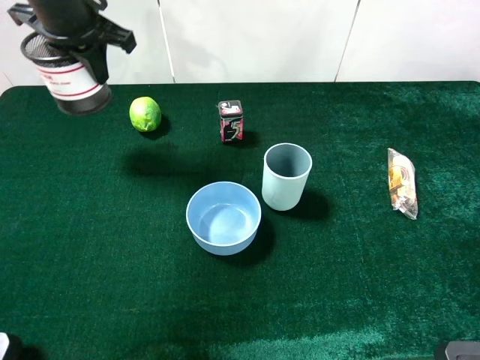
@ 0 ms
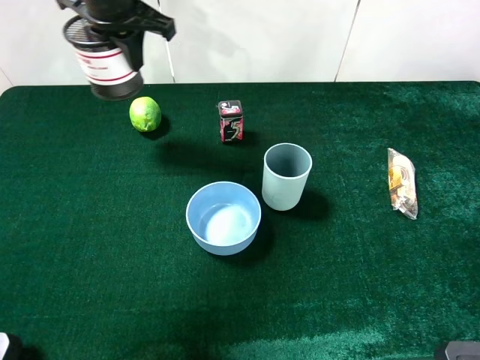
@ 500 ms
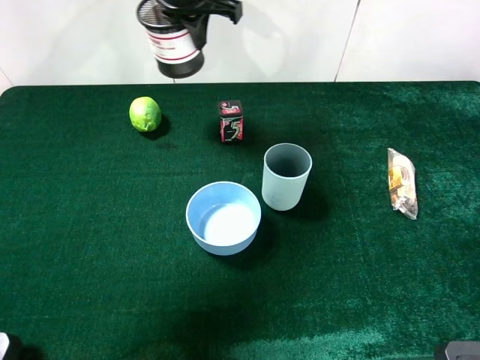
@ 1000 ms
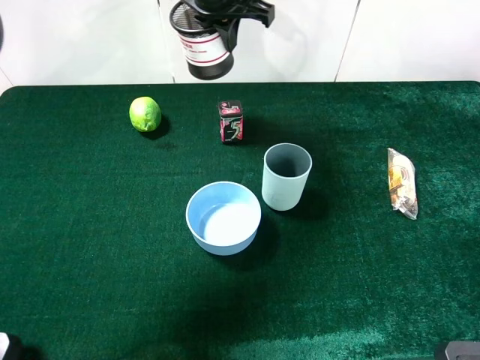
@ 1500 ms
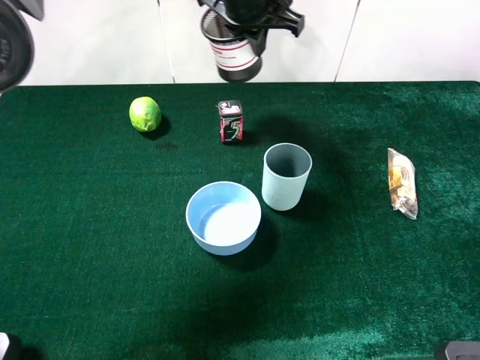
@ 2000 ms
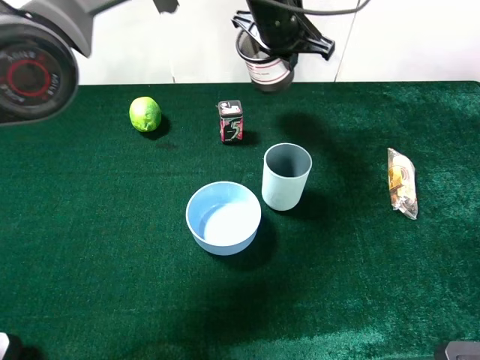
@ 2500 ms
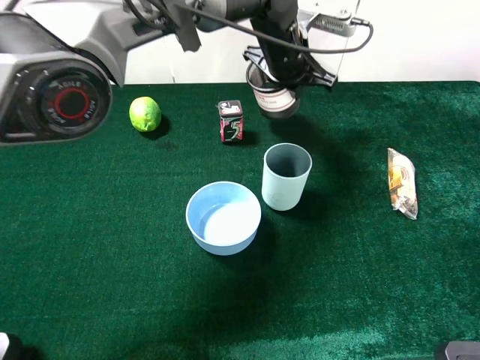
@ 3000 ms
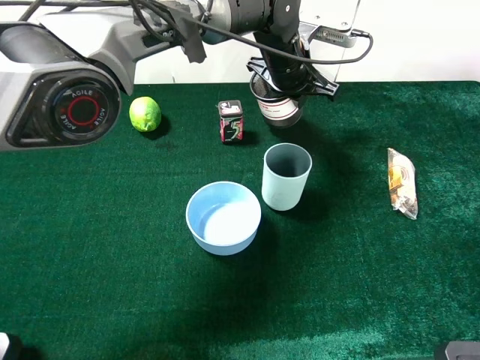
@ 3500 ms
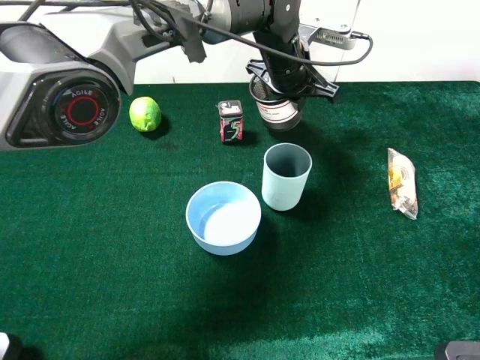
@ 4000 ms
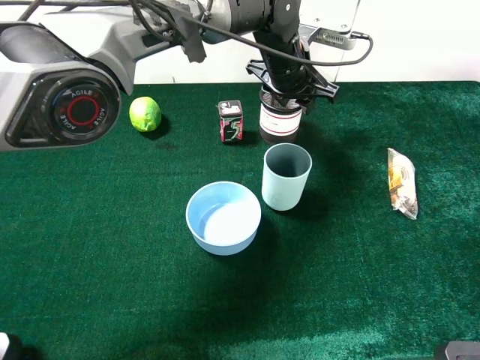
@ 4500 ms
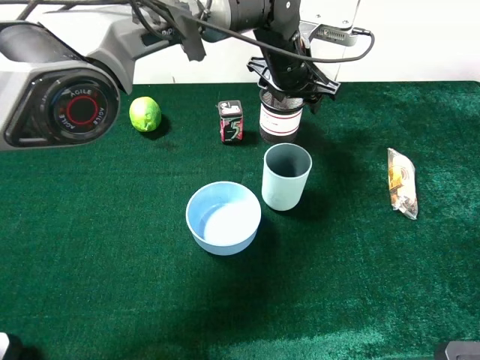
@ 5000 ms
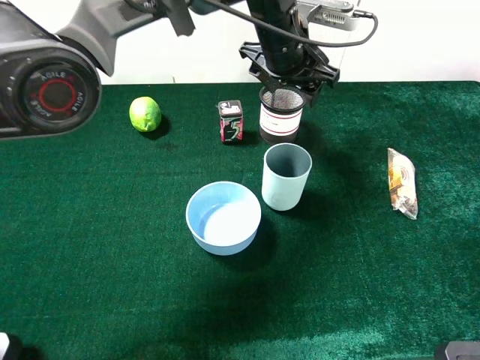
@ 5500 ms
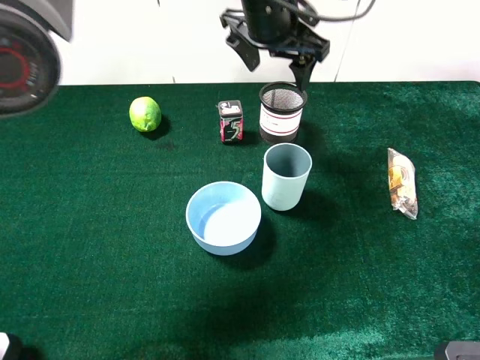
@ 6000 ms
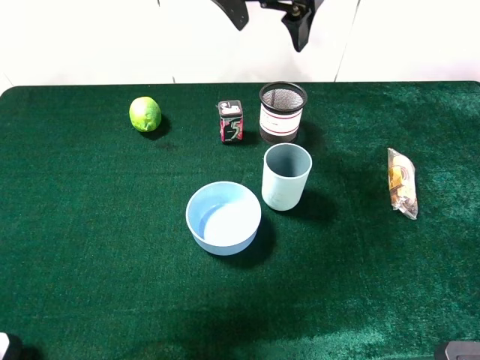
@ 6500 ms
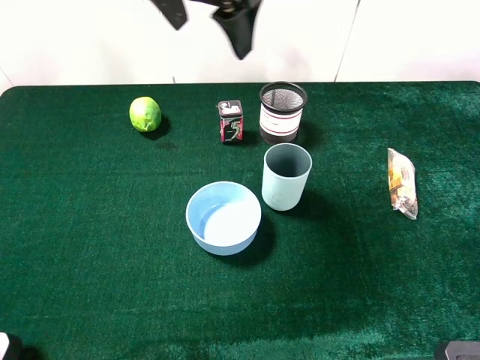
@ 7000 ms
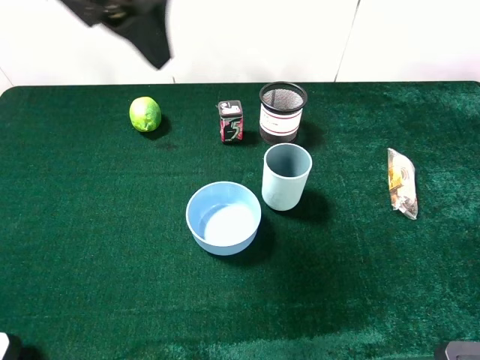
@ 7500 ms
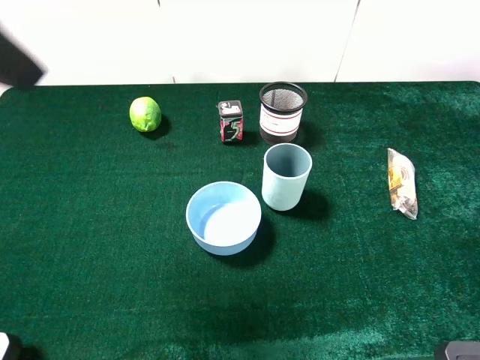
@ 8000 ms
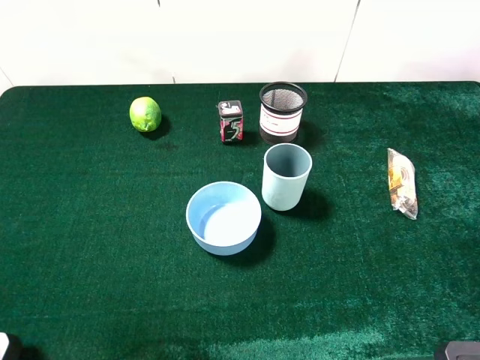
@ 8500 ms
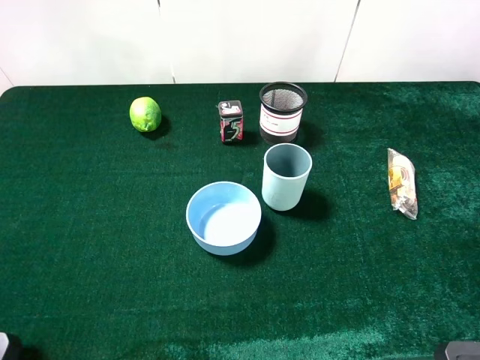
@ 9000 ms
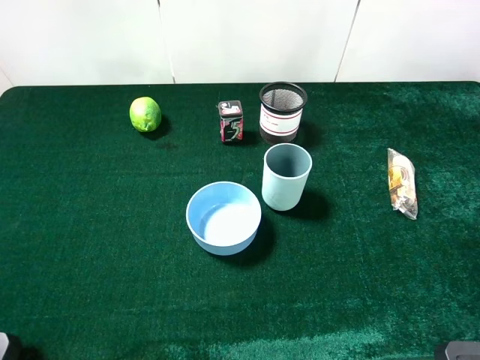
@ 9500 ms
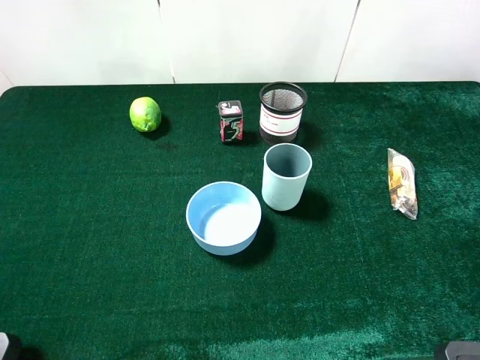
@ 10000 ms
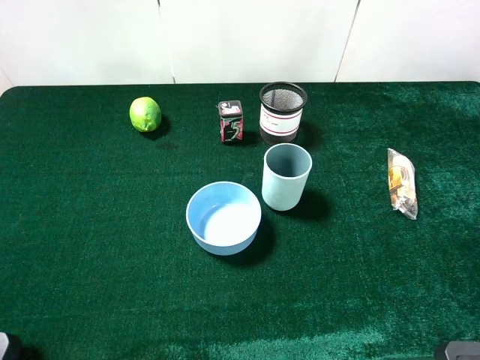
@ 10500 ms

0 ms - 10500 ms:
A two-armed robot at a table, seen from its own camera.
Task of the whole recording: the gripper move the object.
Step, 0 ms - 5000 ms: Place the pen container on the table with the left gripper.
0 ms - 2000 ms: The left gripper heads to the right, covering roughly 20 cm.
2000 ms - 4000 ms: The left gripper travels downward and to the right by some 10 cm.
4000 ms - 6500 ms: The left gripper is displaced upward by some 15 cm, and opens.
6500 ms - 8500 ms: The left gripper moves backward and to the left, approximately 40 cm.
8500 ms - 10500 ms: The left gripper heads downward and backward, covering approximately 15 cm.
